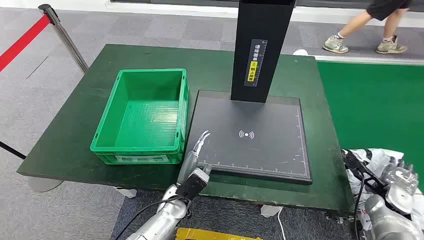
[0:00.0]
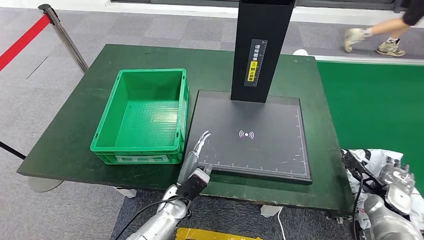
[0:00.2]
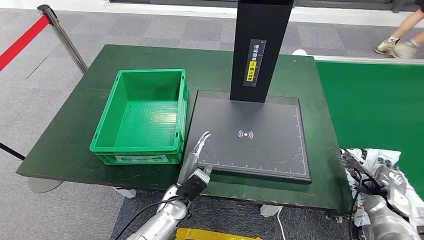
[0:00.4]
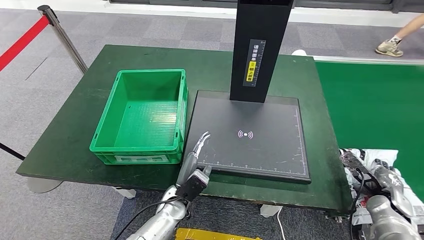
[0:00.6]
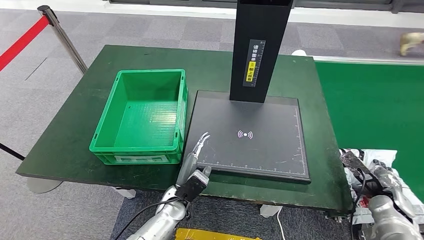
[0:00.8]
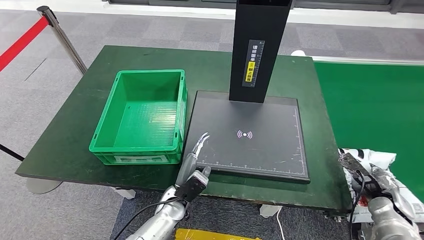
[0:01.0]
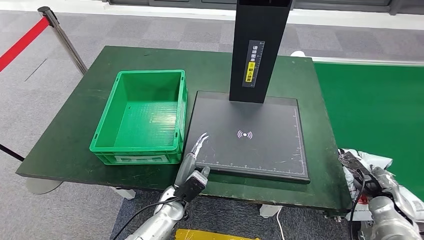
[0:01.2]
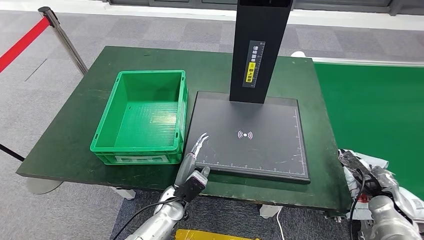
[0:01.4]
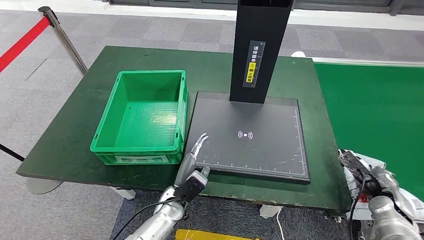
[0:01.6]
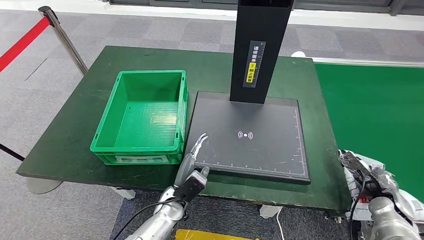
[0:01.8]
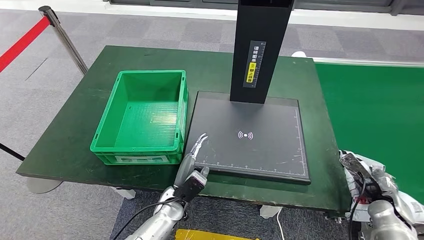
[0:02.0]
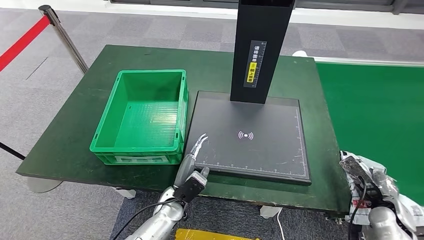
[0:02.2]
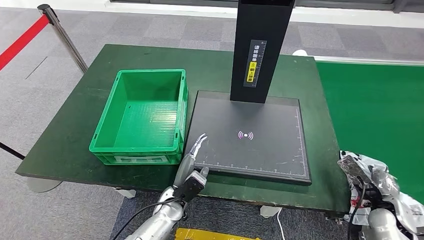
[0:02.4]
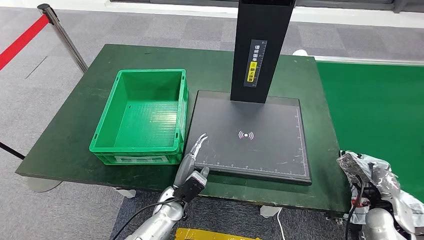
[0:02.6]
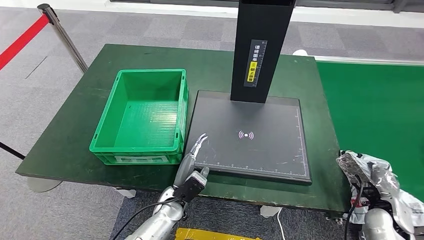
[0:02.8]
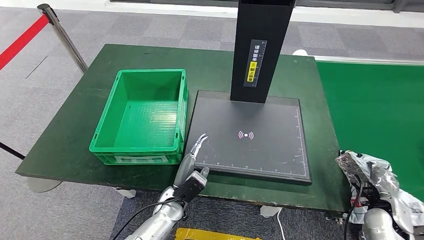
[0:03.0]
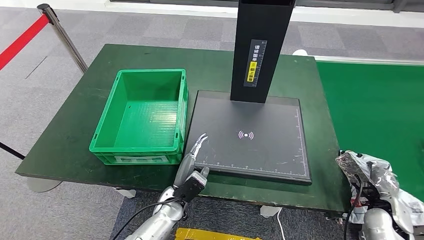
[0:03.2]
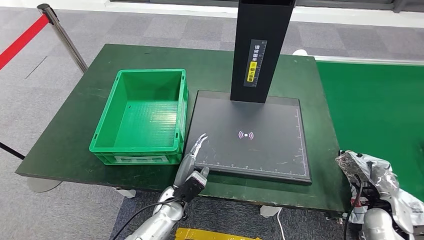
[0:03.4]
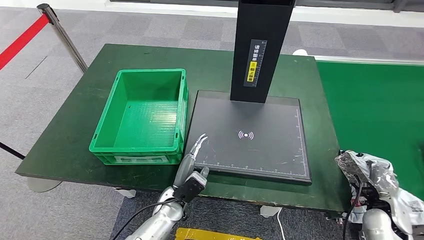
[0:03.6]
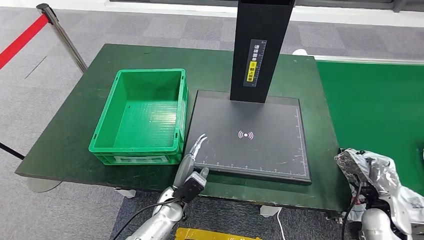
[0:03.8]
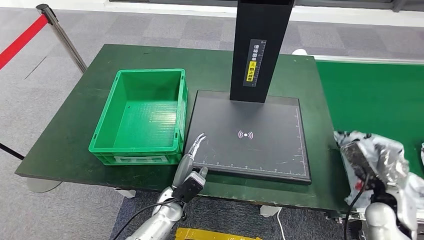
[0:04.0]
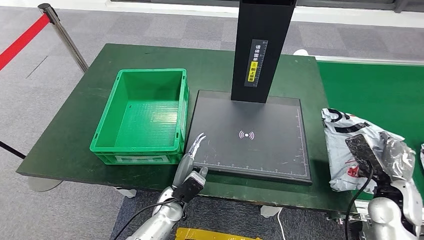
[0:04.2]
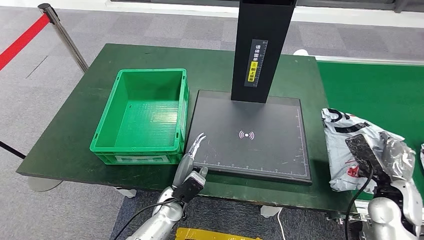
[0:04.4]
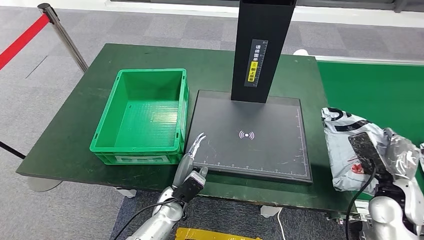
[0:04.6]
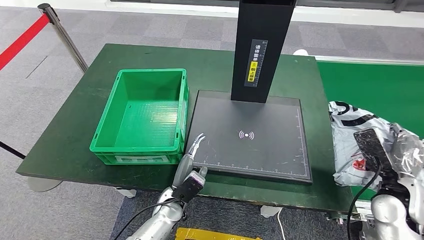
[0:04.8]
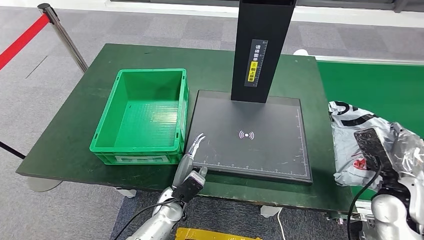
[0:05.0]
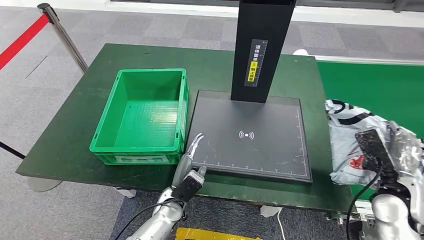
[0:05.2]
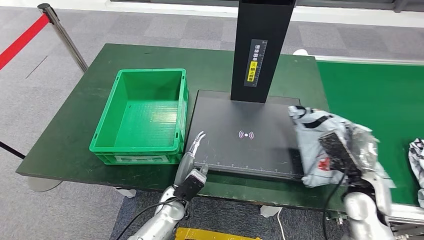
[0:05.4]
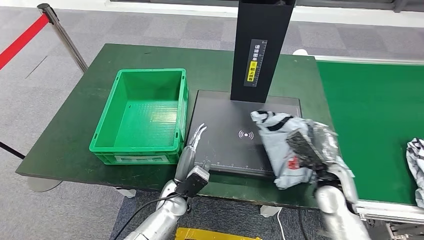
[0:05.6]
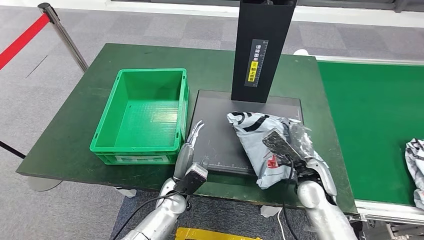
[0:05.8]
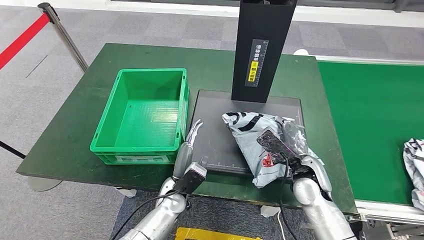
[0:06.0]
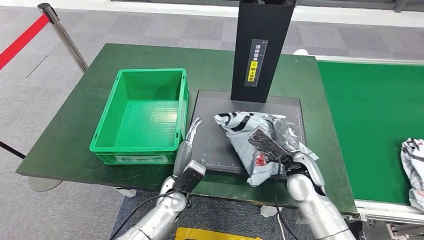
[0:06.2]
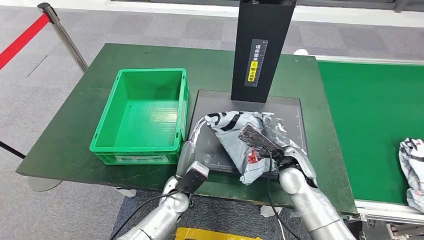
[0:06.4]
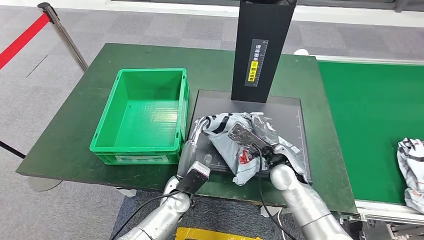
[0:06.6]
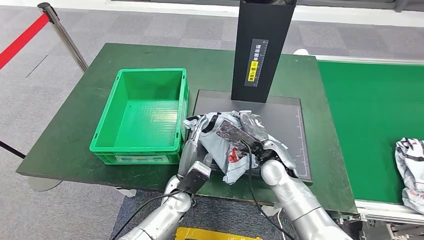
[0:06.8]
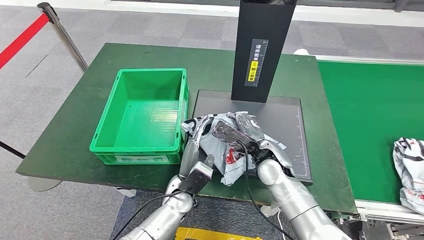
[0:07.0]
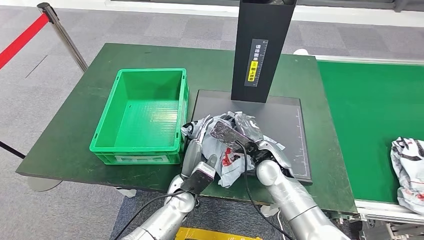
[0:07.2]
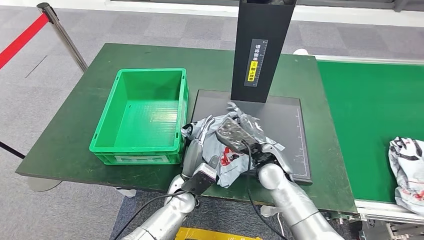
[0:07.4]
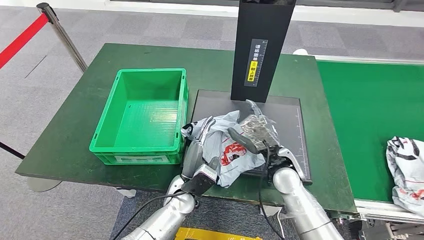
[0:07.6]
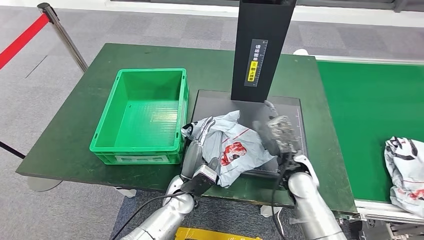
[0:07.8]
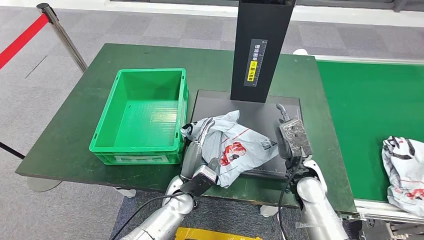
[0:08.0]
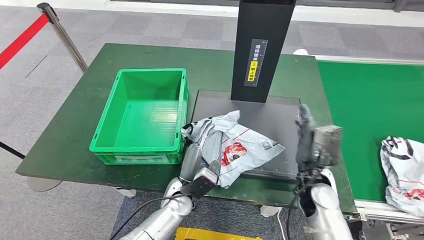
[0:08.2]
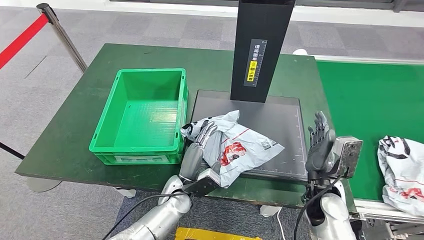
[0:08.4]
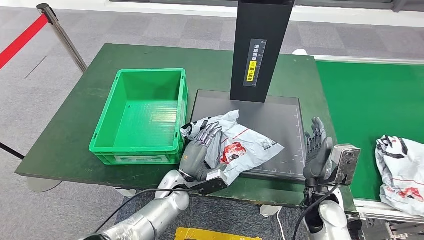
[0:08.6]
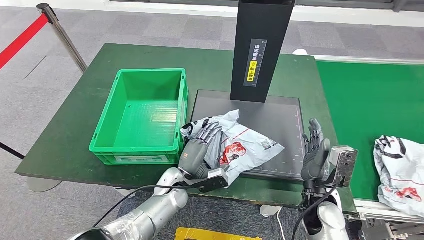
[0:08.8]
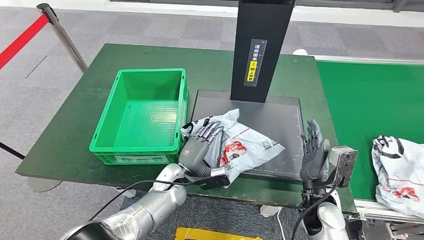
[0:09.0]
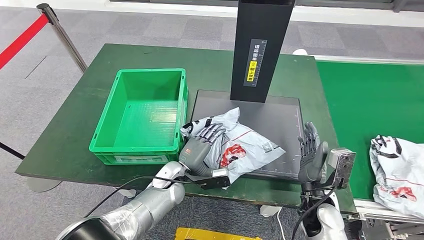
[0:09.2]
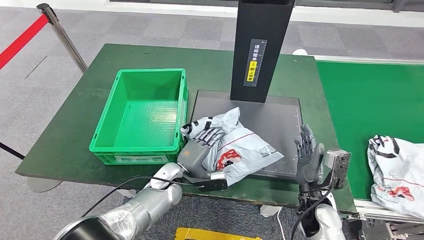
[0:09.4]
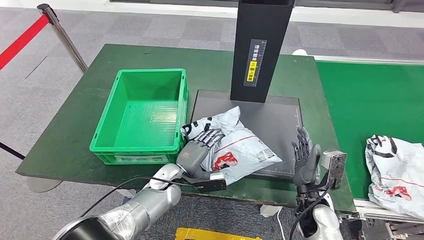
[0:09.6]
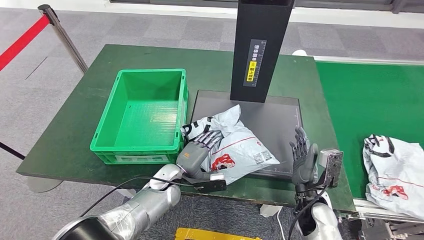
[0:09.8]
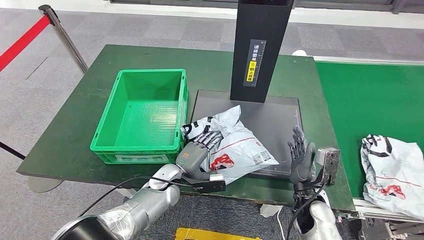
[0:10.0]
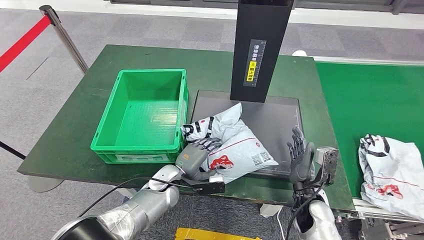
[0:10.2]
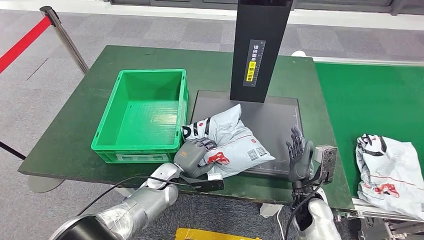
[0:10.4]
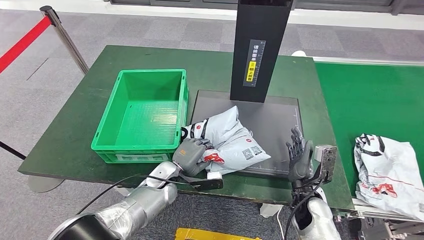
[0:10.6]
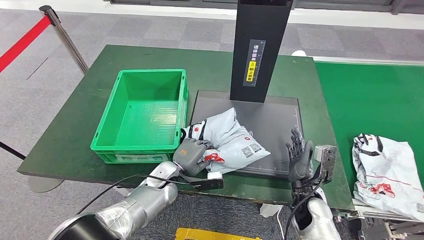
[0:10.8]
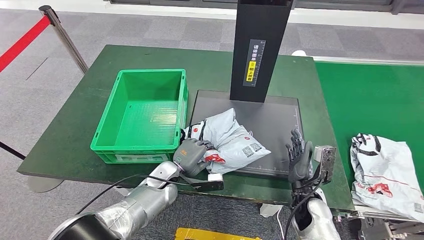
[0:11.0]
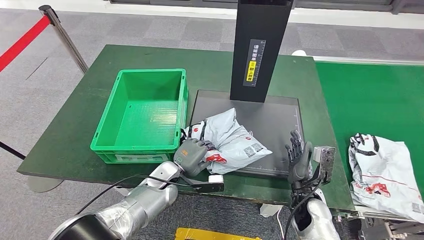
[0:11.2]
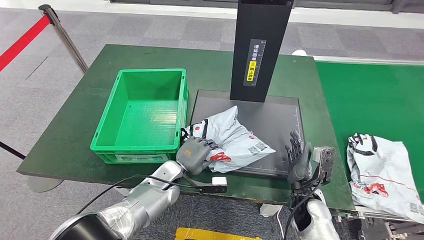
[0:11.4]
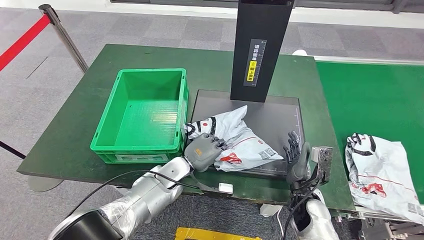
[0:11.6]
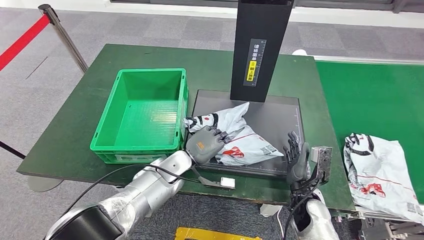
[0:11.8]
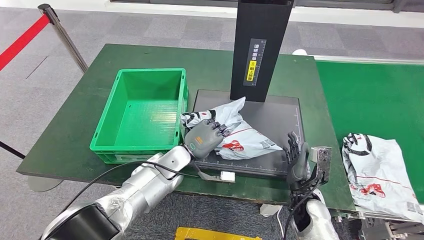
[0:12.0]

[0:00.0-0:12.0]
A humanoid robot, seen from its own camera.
Step, 0:00.0 to 0:04.4: Take the parcel off the conveyor belt.
Step, 0:04.6 to 0:07.6: Place the parcel onto the inbound machine.
0:01.6 to 0:03.0: The right hand ends up about 5 cm from where it was.
0:03.0 to 0:04.4: The right hand travels upward by some 10 cm.
0:06.0 to 0:07.6: The right hand moves to the left, about 5 cm.
0:07.6 to 0:09.0: The left hand changes place by about 5 cm; the right hand travels to the right and backward by some 10 cm.

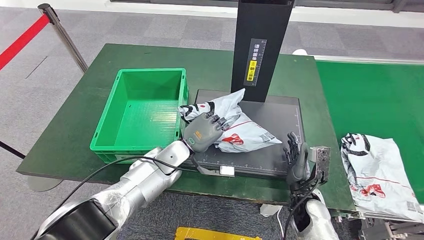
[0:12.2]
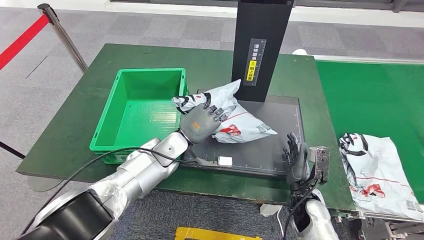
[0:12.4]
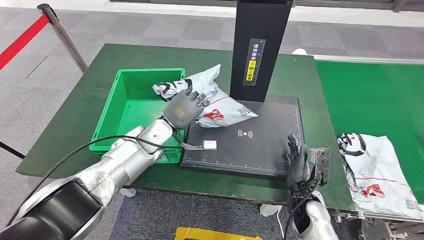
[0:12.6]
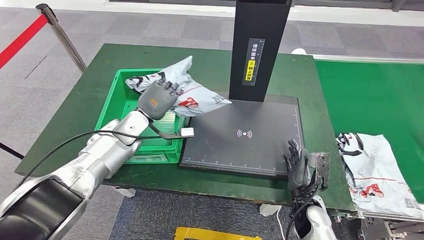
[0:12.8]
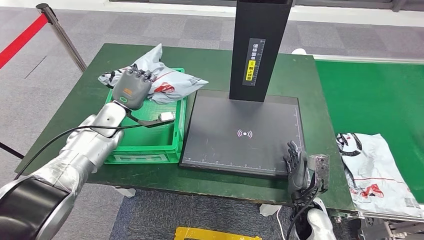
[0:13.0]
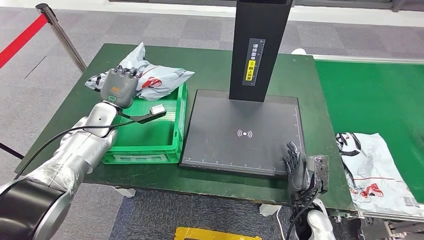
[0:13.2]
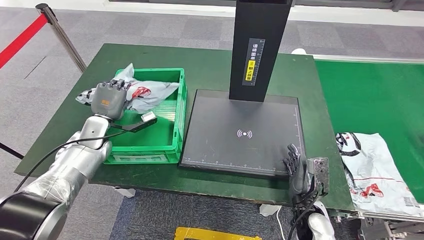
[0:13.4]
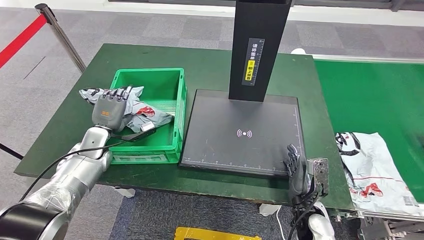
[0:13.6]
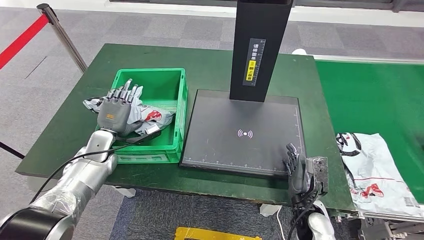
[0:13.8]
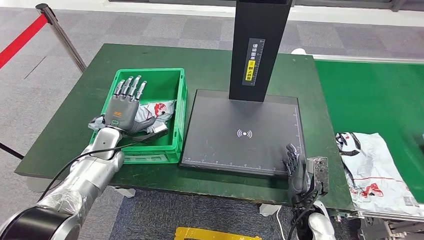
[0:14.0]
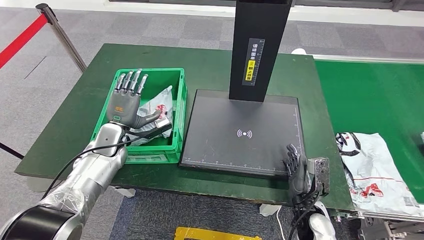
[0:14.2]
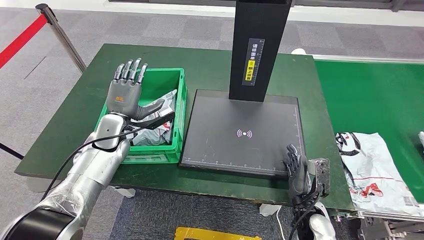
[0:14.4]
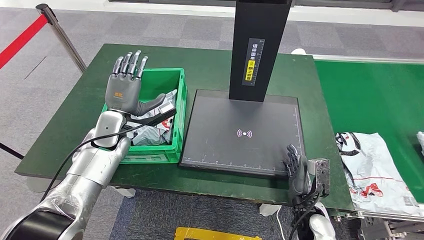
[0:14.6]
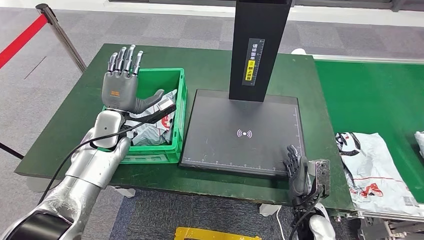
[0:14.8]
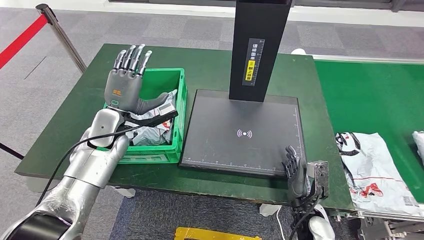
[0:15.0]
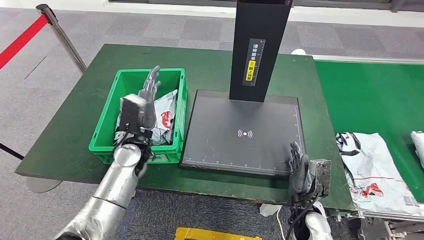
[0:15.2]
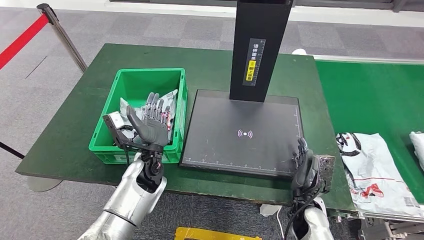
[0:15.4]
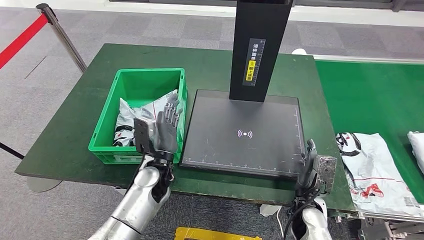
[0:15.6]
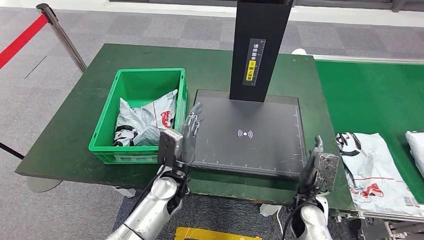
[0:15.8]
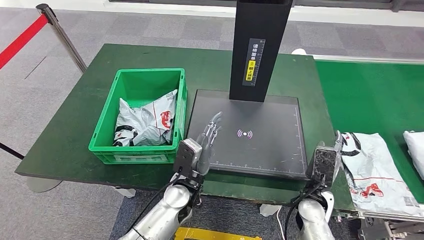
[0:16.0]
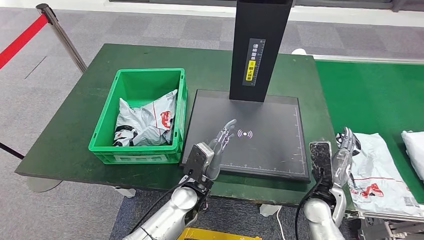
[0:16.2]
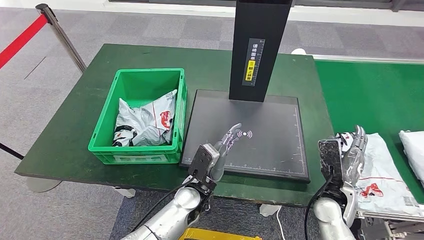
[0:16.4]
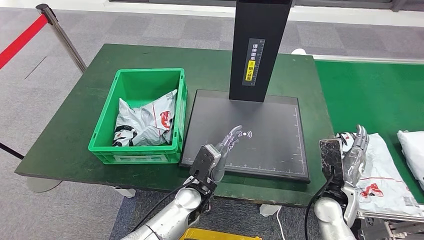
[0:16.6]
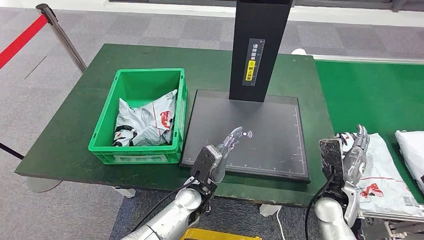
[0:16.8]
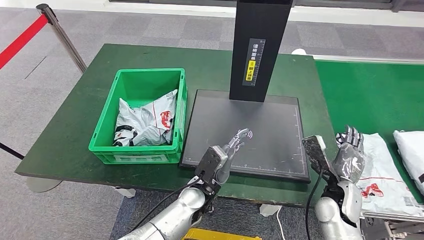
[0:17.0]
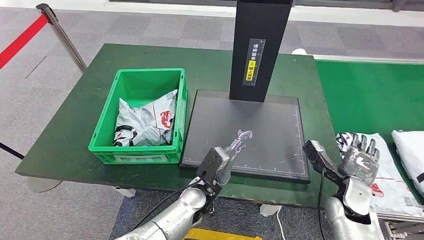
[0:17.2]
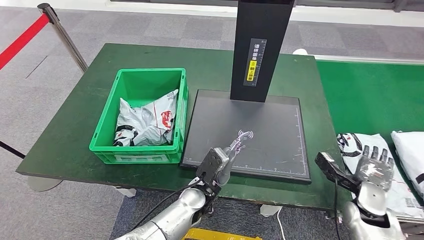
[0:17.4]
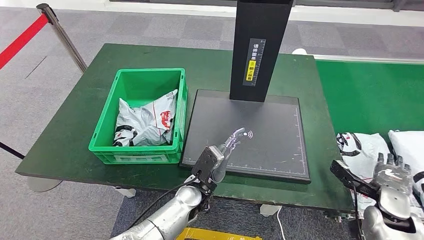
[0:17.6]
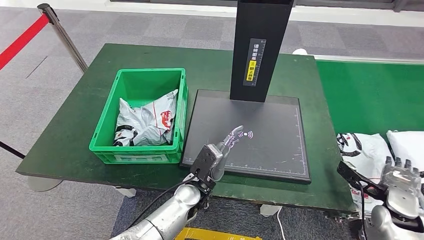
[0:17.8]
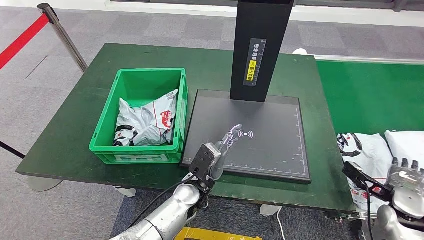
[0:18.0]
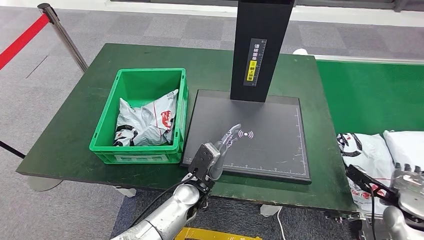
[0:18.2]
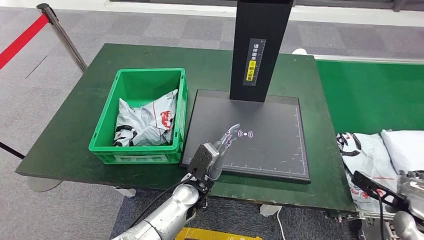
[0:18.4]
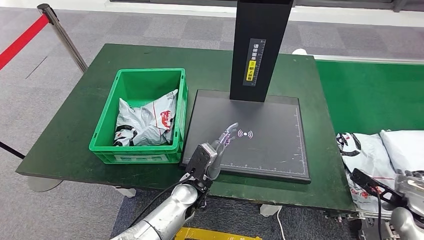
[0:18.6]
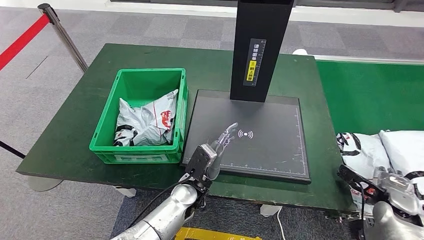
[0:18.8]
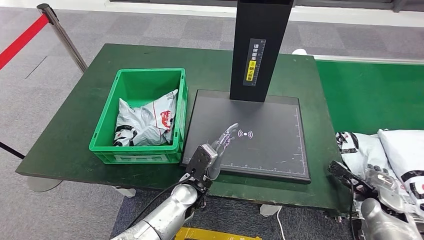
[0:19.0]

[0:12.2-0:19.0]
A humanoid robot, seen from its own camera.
Step, 0:12.6 to 0:14.0: Put the parcel inside the courier box.
0:13.6 to 0:15.0: The left hand travels to the right and upward by about 15 cm.
0:15.0 to 0:16.2: The left hand heads to the right, backward and downward, covering approximately 25 cm. Meanwhile the right hand moves approximately 5 cm.
0:16.2 to 0:17.6: The right hand is displaced to the right by roughly 15 cm.
0:17.6 to 0:19.0: The right hand ends up roughly 5 cm from where it was.
